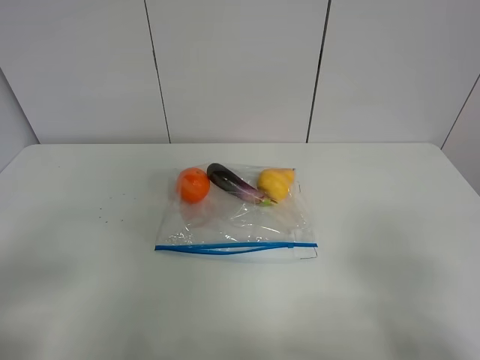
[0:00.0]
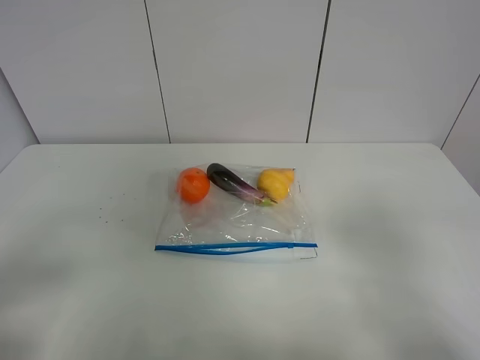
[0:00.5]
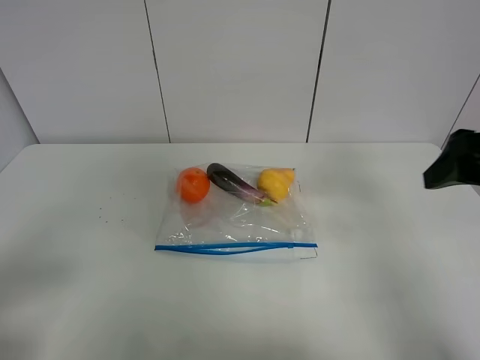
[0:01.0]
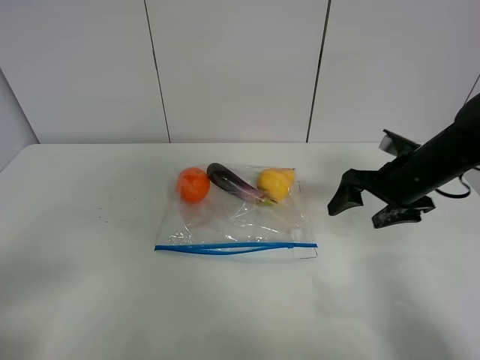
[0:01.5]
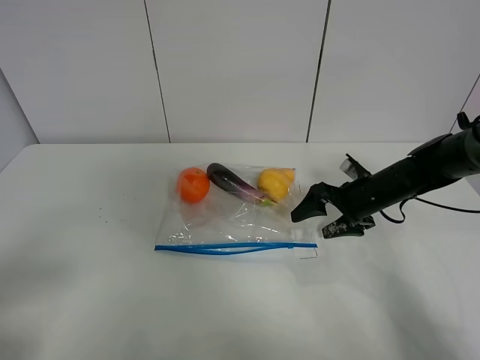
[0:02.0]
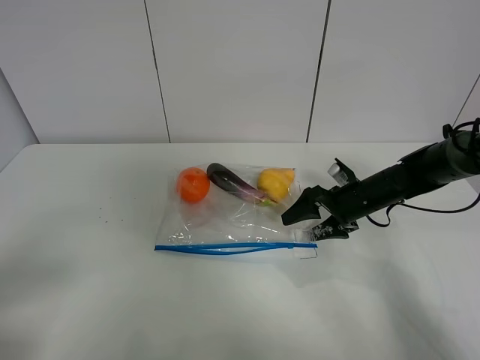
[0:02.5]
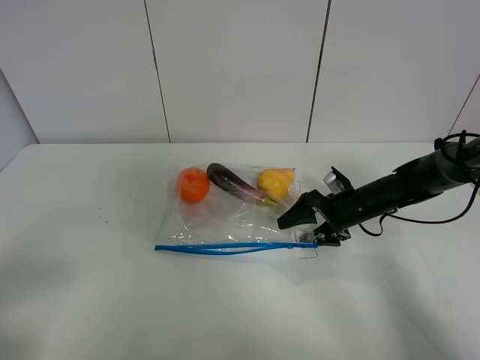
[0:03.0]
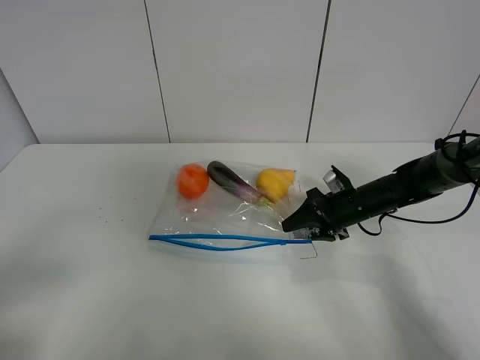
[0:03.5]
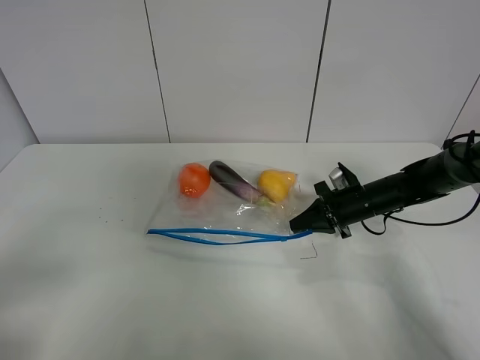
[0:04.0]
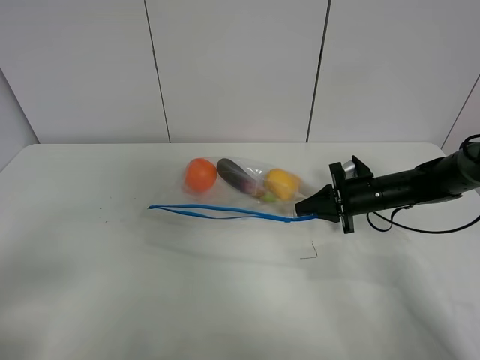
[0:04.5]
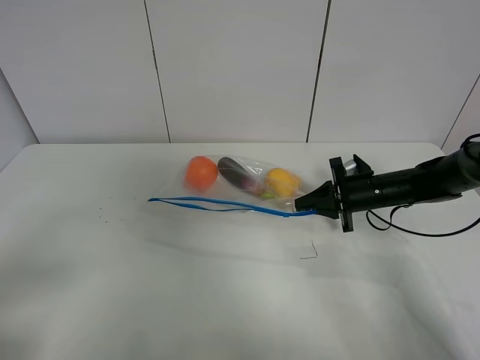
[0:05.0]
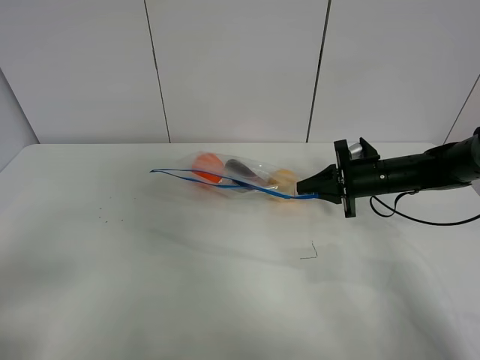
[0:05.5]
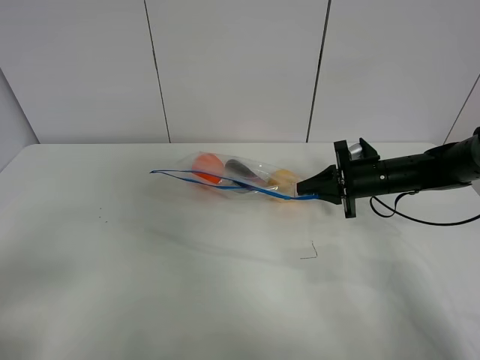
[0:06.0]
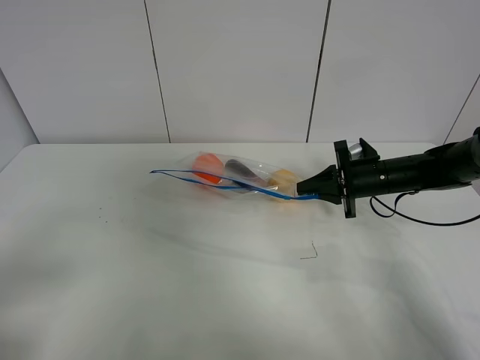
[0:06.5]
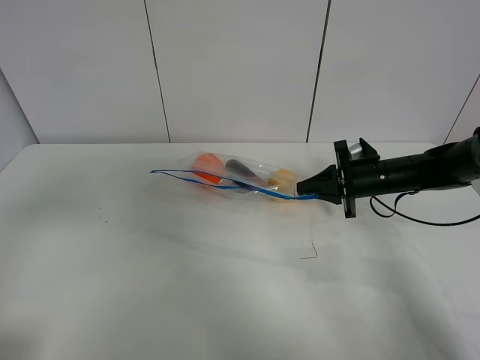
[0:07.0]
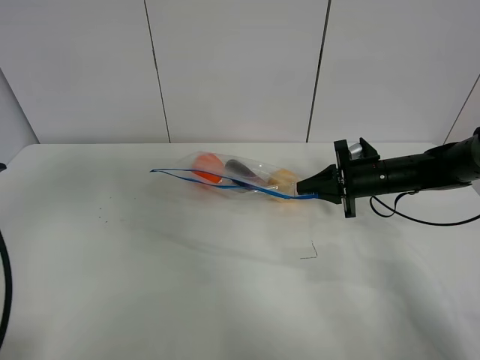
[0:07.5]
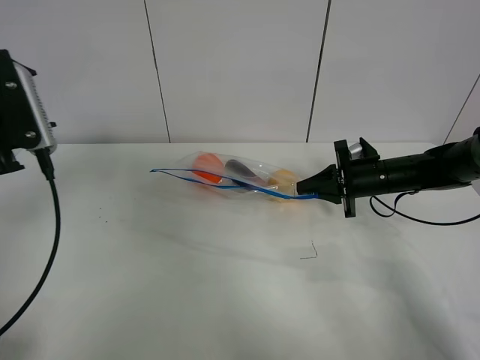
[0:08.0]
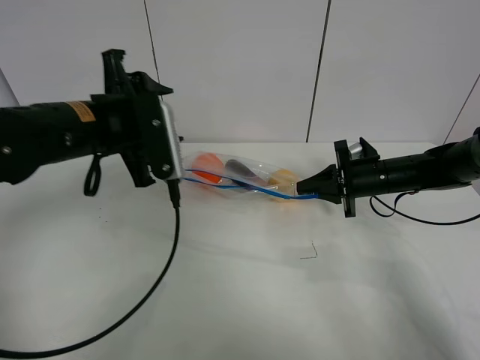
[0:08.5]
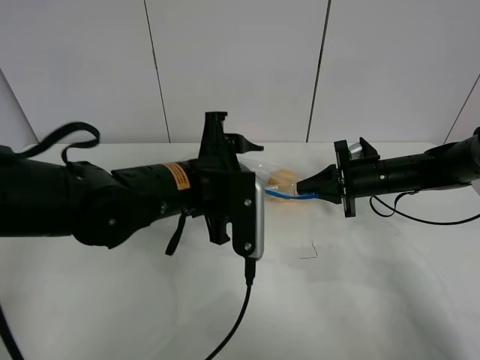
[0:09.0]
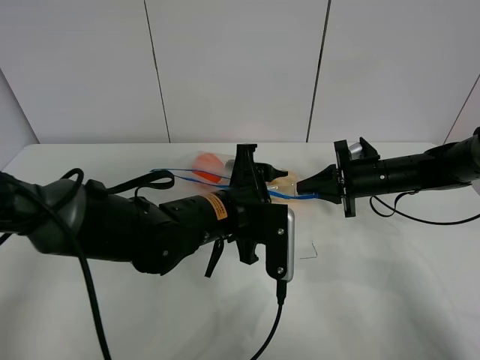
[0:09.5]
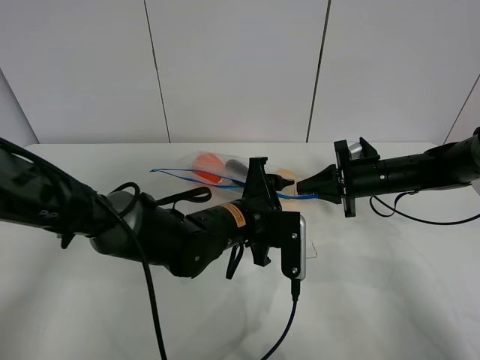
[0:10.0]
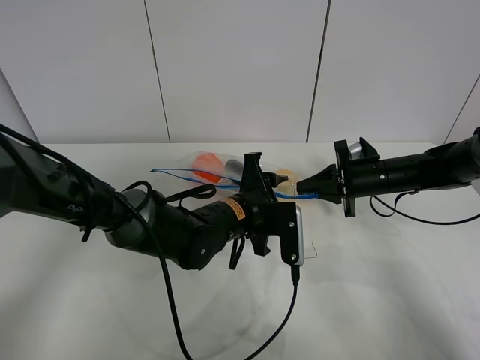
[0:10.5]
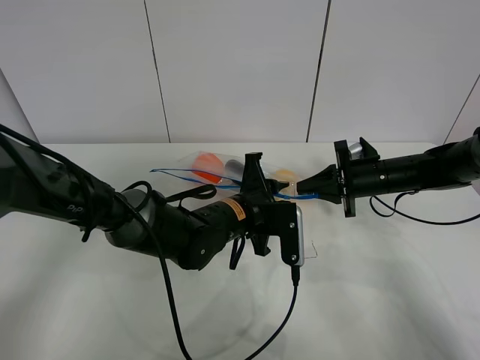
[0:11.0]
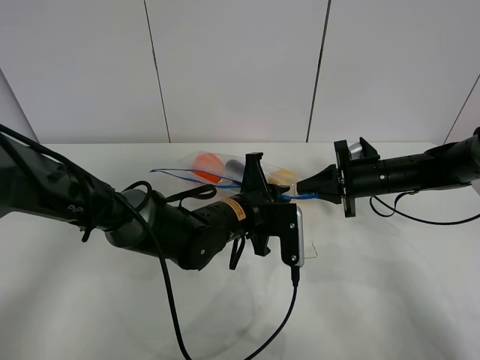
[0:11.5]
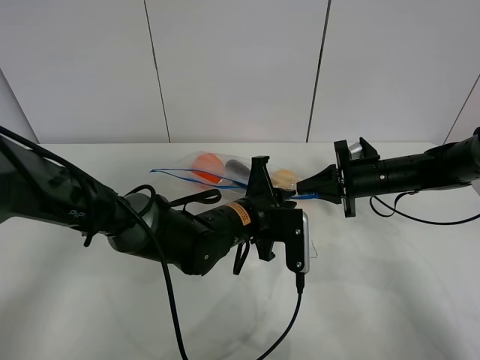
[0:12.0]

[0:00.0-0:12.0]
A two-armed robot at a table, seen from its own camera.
Step, 0:00.0 to 0:03.5: Grasp the fruit bag with right gripper.
Step, 0:04.0 to 0:06.0: Lift the fruit bag with your right gripper.
0:00.0 to 0:02.0: The right gripper travels forward and downward by about 40 cm.
0:02.0 to 0:04.0: The right gripper closes.
0:04.0 to 0:06.0: The grippers make only small movements.
0:06.0 to 0:08.0: The left gripper shifts roughly 25 cm forward.
0:08.0 to 0:10.0: The left gripper goes some 35 cm to the right and downward.
0:10.0 to 0:12.0: The left gripper closes.

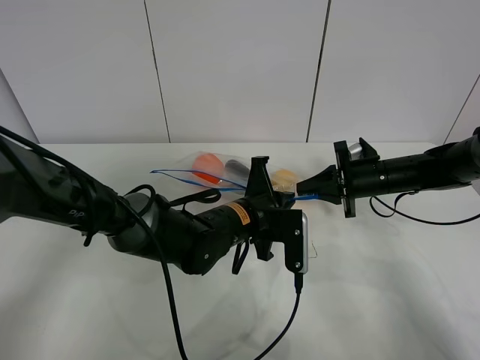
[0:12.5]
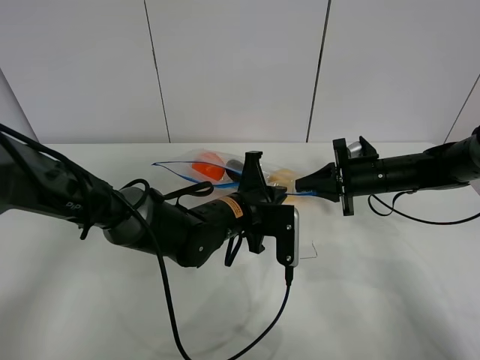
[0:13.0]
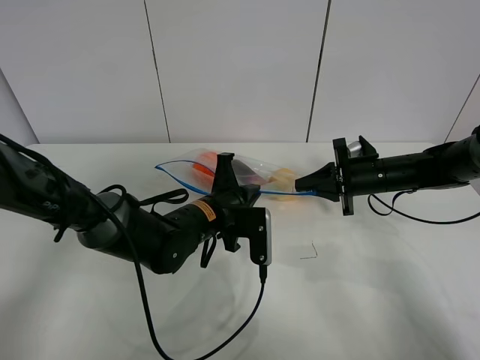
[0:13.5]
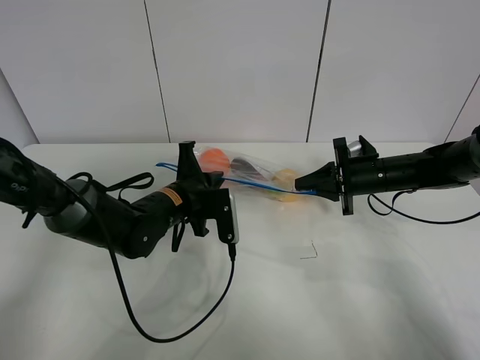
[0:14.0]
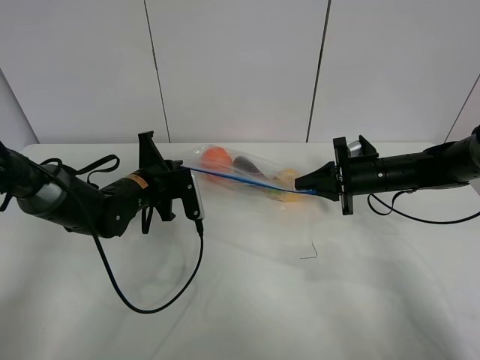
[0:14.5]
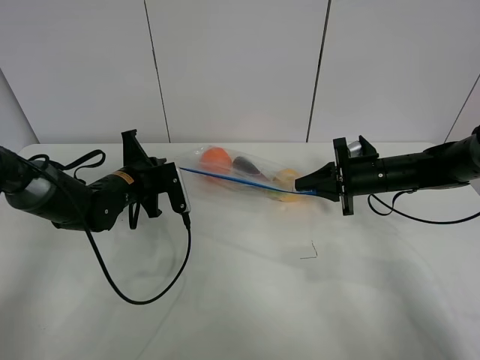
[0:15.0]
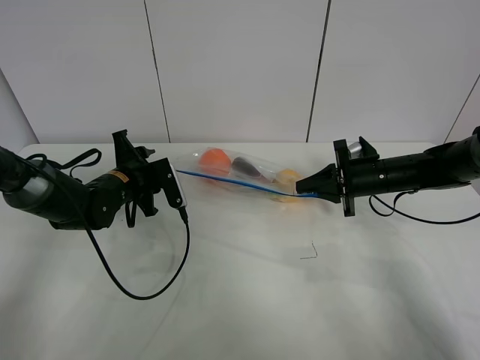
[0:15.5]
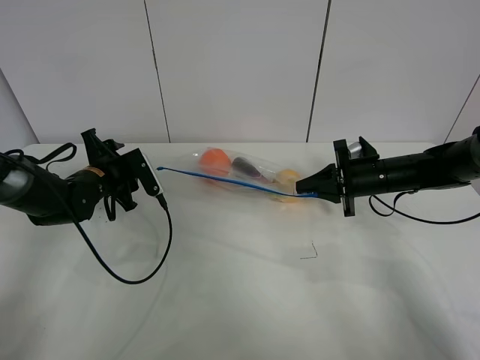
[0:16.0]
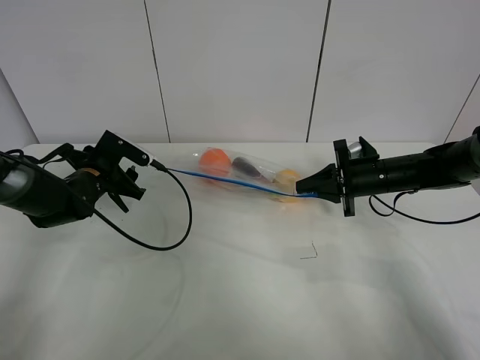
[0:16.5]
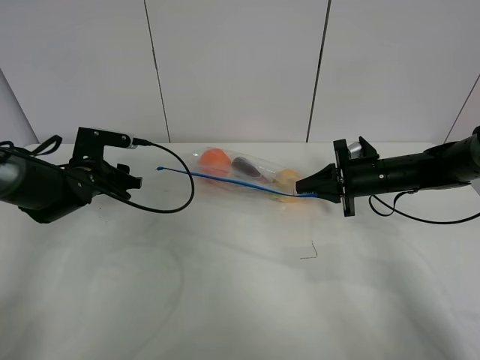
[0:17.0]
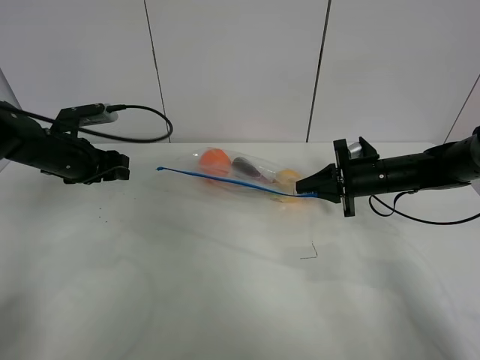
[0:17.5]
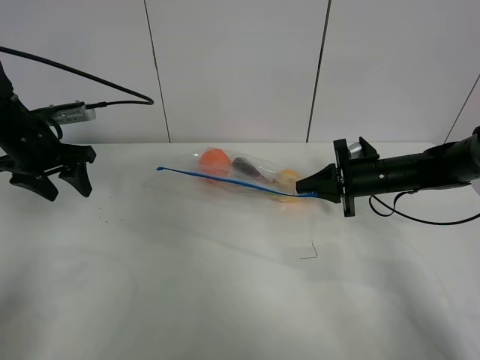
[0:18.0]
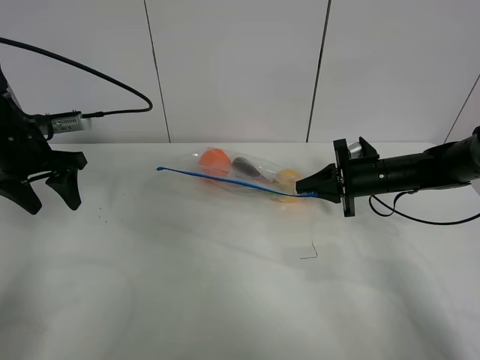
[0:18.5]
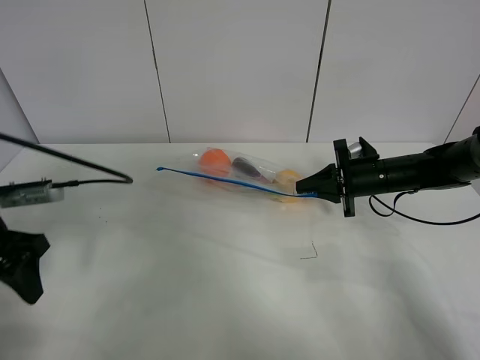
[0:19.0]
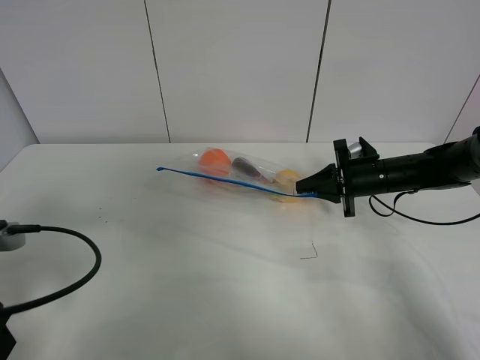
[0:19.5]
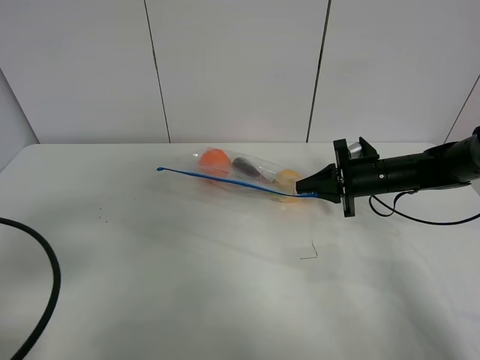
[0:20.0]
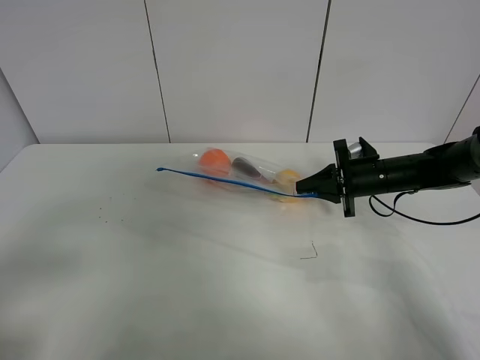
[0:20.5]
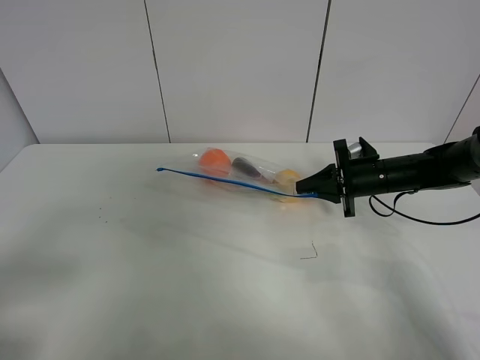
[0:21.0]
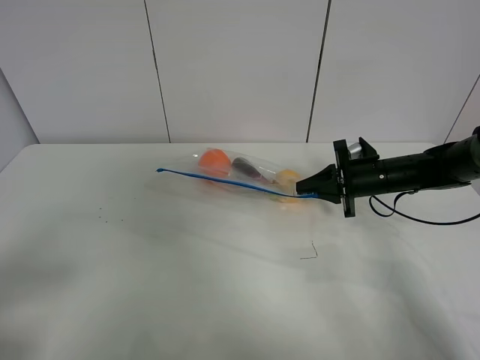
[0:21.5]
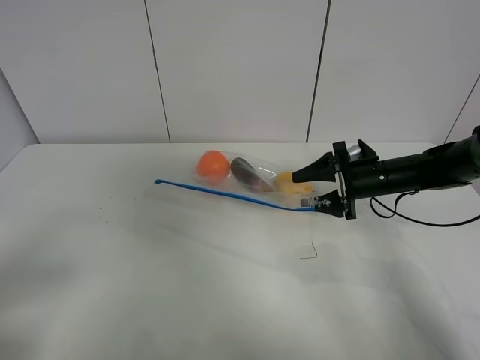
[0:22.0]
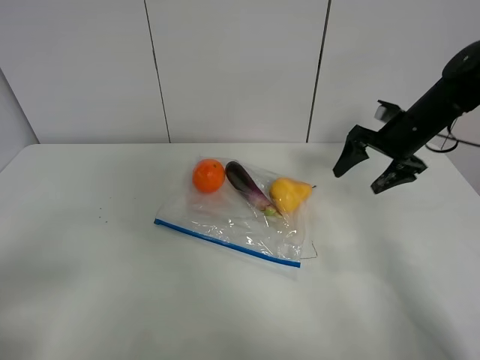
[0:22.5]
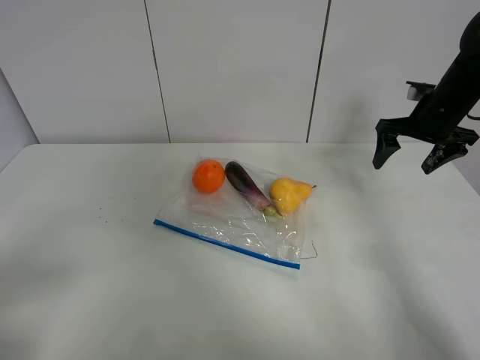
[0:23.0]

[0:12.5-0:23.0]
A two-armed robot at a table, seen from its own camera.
Step, 0:12.5 to 0:15.5: Pull the fruit bag with left gripper.
0:12.5 to 0:14.5: The left gripper goes about 20 cm to the left and forward.
0:14.5 to 0:16.5: The left gripper goes some 10 cm to the left, and opens its fingers.
0:16.5 to 0:19.0: The left gripper goes roughly 20 cm backward and upward.
0:19.0 to 0:21.0: The left gripper moves backward, some 20 cm.
0:21.0 to 0:23.0: The right gripper heads upward and to the right, covering roughly 15 cm, and opens.

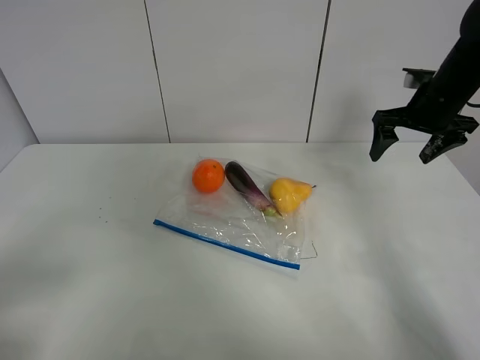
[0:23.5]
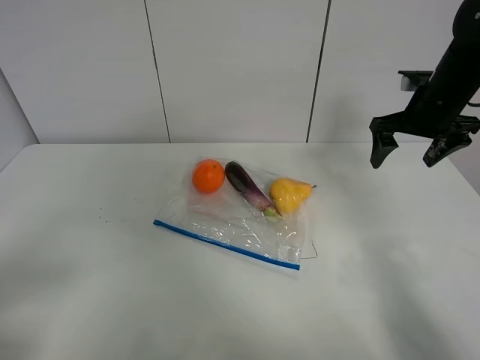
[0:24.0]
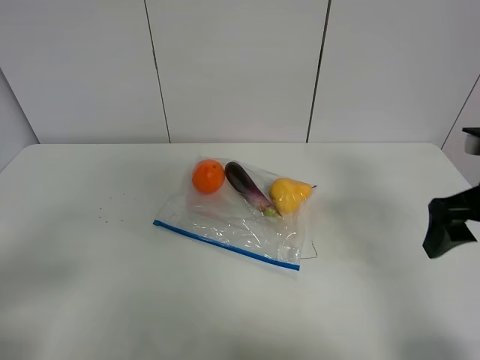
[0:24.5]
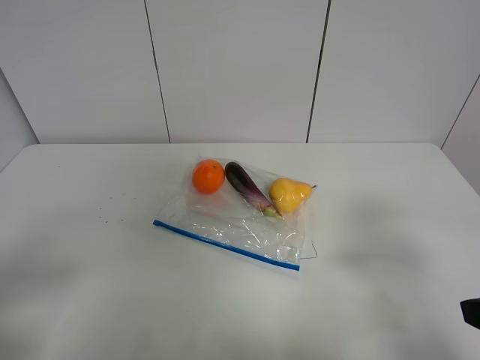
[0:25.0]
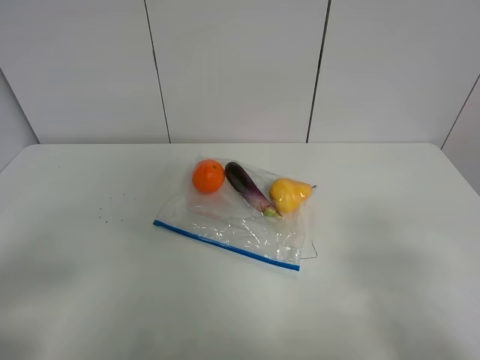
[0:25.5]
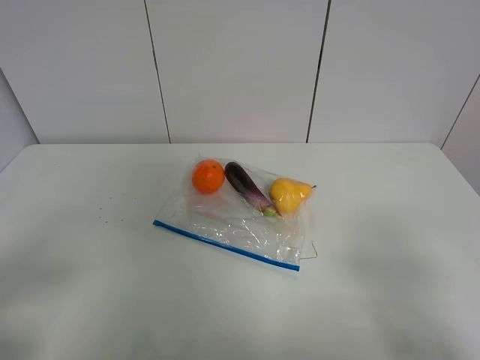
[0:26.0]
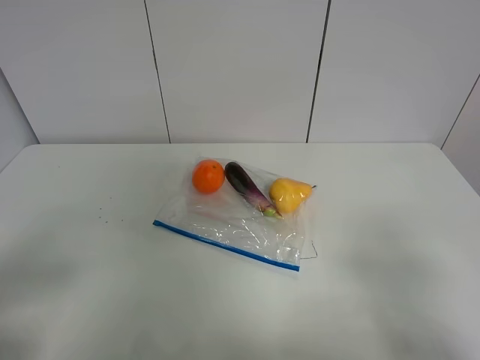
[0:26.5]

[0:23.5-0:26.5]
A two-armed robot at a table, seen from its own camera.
0:23.5 to 0:25.0: The right gripper travels backward by about 35 cm.
